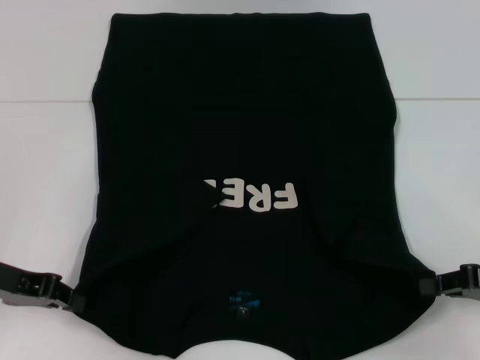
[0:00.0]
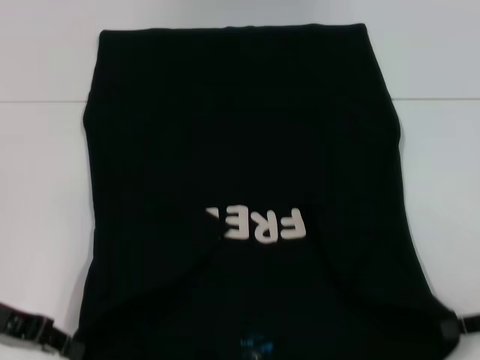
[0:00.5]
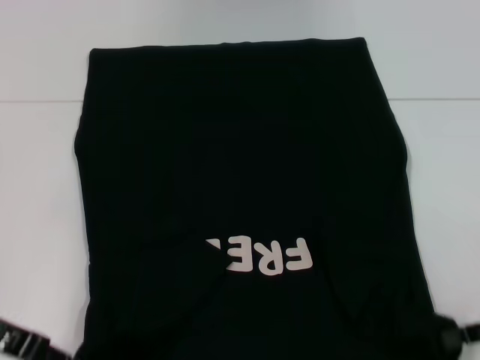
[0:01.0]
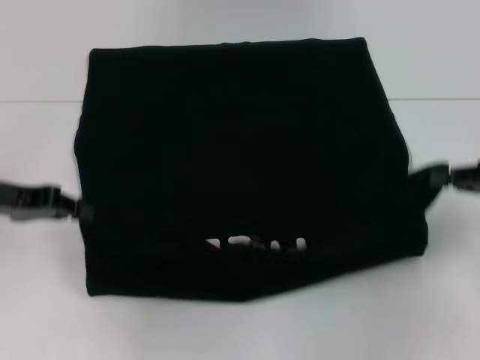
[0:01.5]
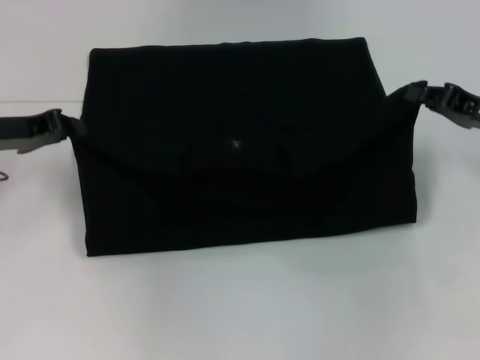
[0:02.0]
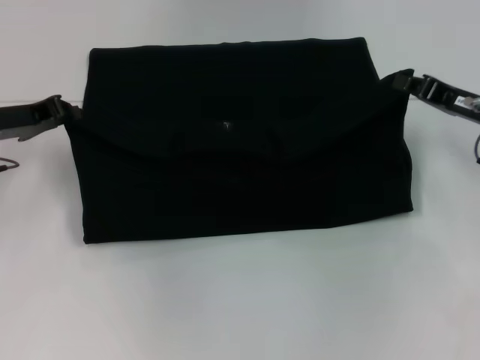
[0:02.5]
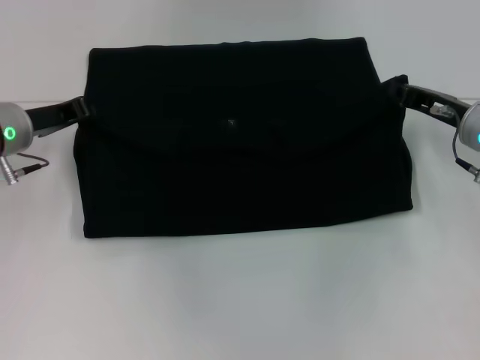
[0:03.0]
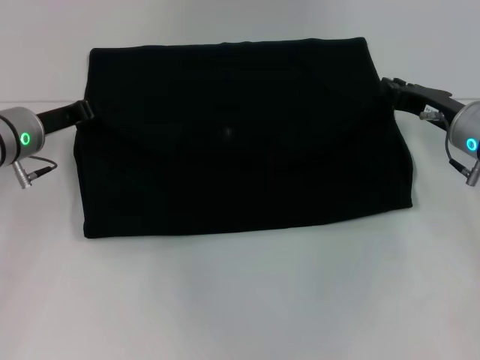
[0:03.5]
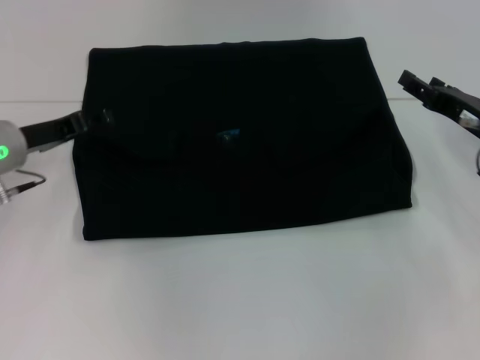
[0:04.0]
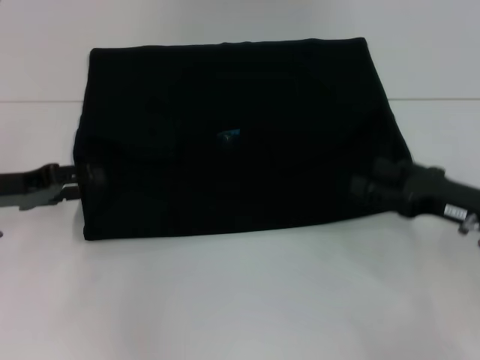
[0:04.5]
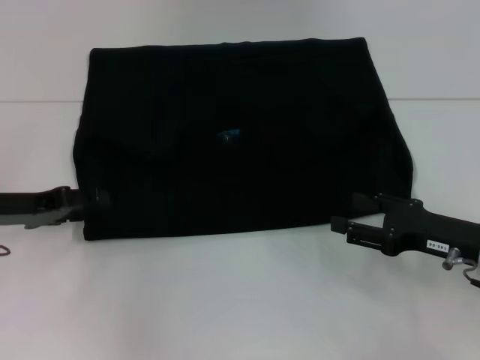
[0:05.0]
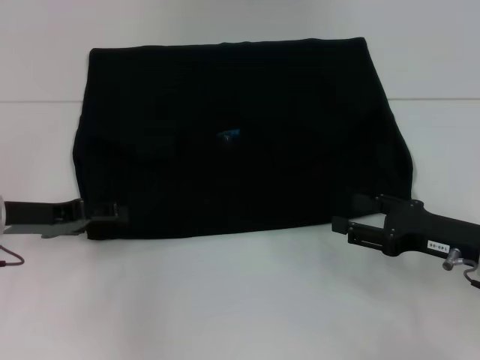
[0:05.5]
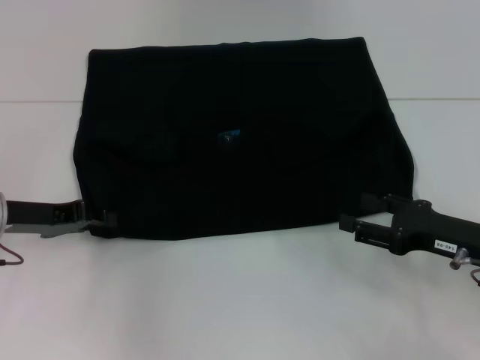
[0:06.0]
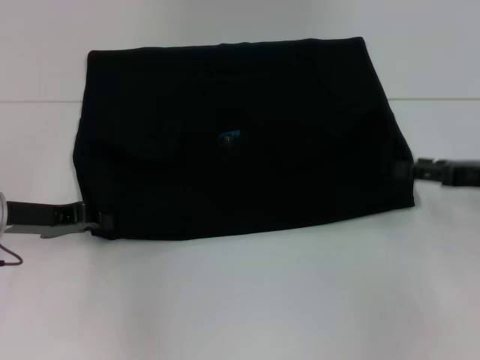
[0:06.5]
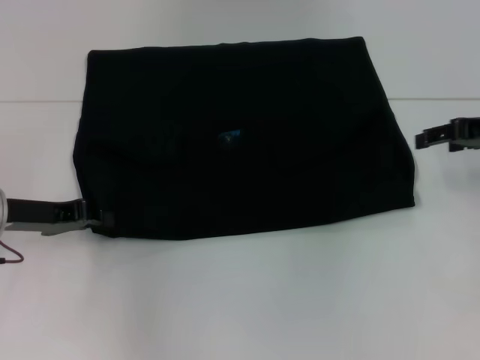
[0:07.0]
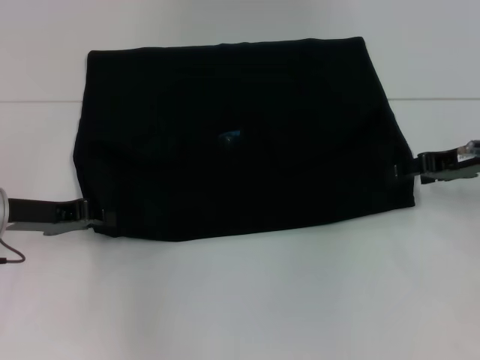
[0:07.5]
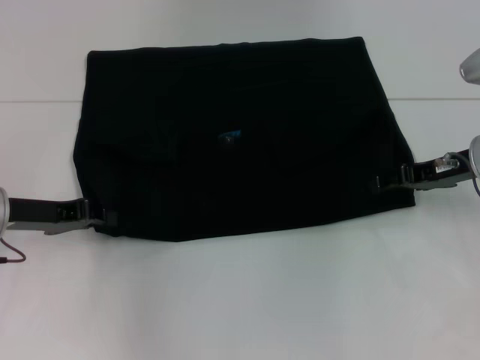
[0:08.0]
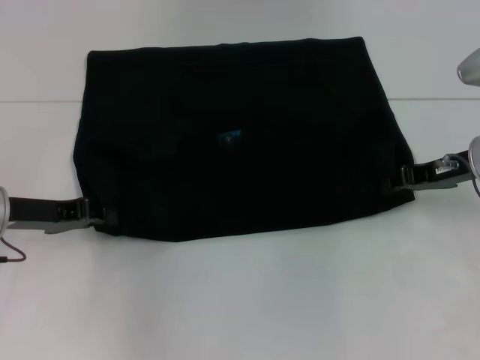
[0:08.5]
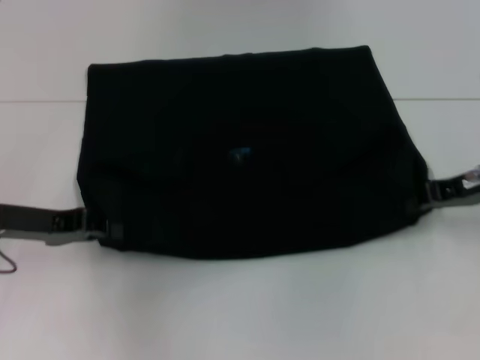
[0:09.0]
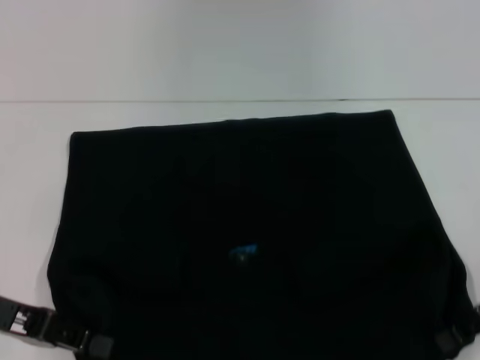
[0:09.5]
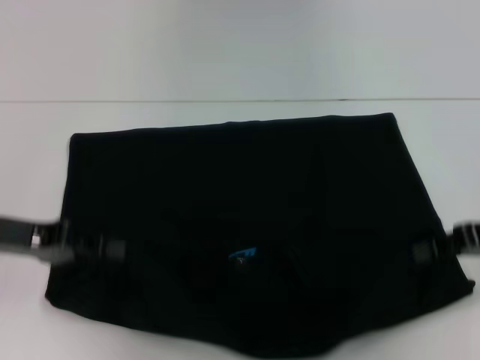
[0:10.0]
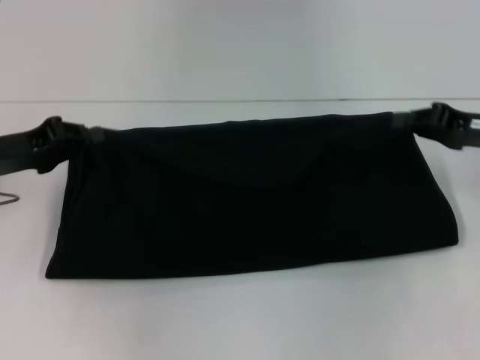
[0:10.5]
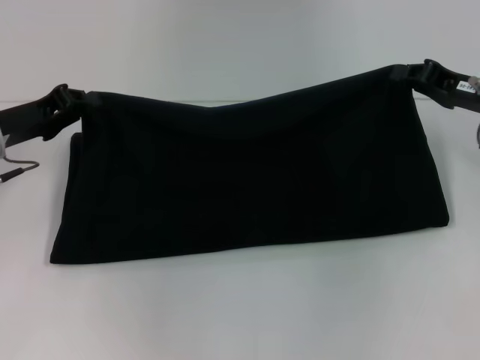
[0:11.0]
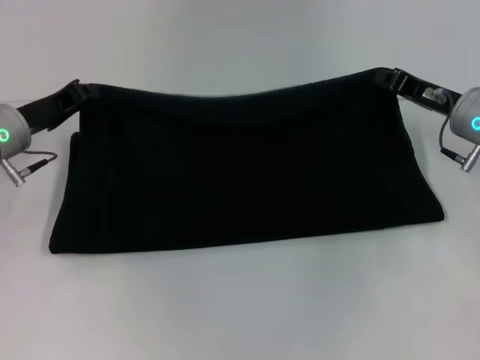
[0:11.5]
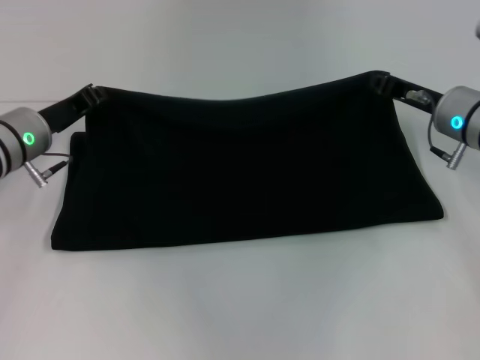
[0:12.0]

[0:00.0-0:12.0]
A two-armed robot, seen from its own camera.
Step, 0:00.0 to 0:04.5: Fold the clothes with your left hand.
Step, 0:00.0 to 0:04.5: Fold the clothes with your right hand.
Step, 0:05.0 to 0:09.0: Pull the clothes with your right hand.
0:00.0 to 0:02.0: Both grippers travel together forward, approximately 10 cm.
0:02.0 to 0:04.0: The left gripper shifts by some 5 cm, and opens up. Meanwhile the right gripper opens up.
0:04.0 to 0:06.0: The left gripper is displaced backward by approximately 5 cm; the right gripper is displaced backward by about 10 cm.
0:06.0 to 0:08.0: The left gripper closes up. The right gripper is displaced forward and upward by about 10 cm.
0:08.0 to 0:10.0: The left gripper shifts by some 5 cm. Meanwhile the right gripper moves backward and to the right, some 10 cm, and closes.
0:10.0 to 0:12.0: The left gripper shifts approximately 10 cm forward; the right gripper travels forward and to the left by some 15 cm.

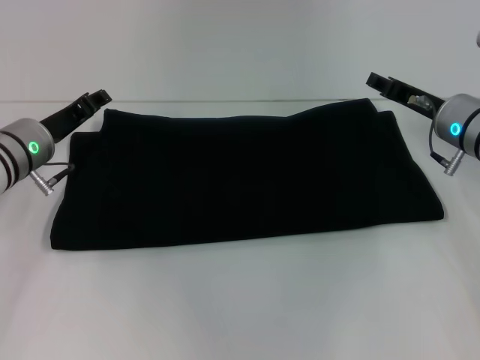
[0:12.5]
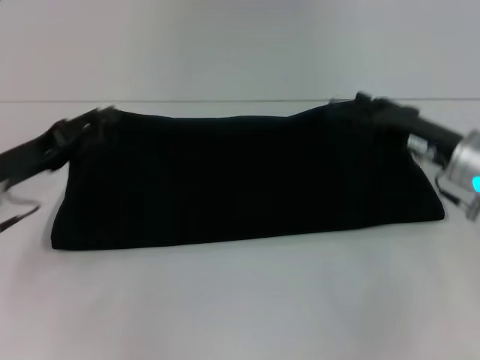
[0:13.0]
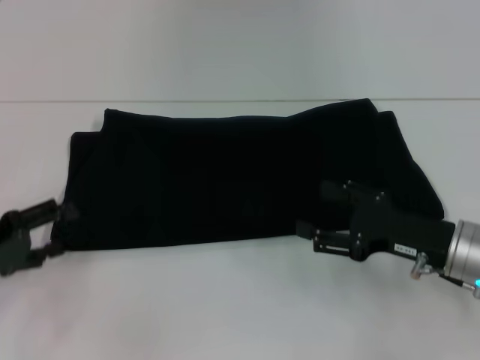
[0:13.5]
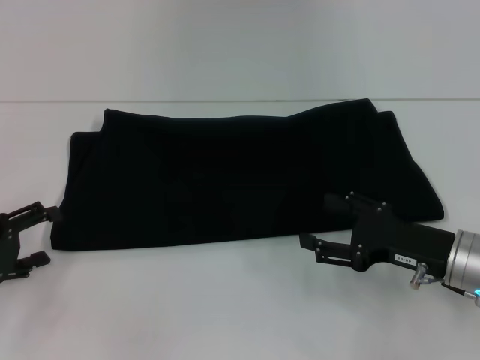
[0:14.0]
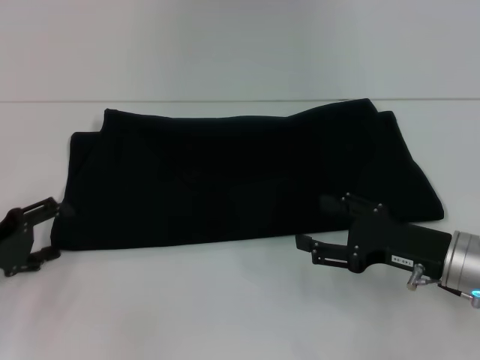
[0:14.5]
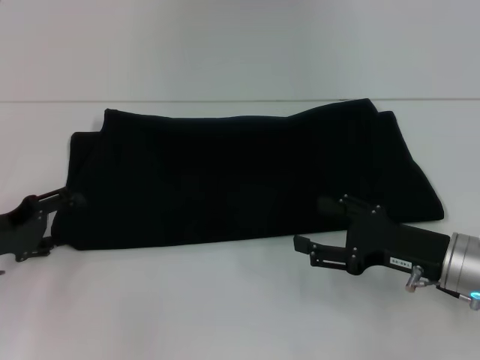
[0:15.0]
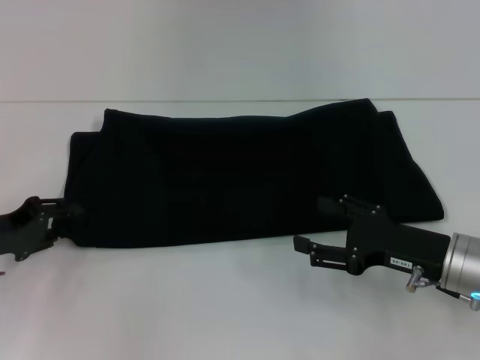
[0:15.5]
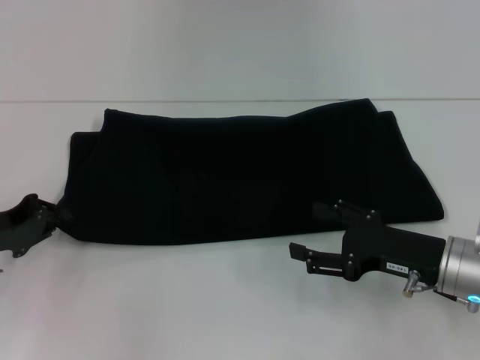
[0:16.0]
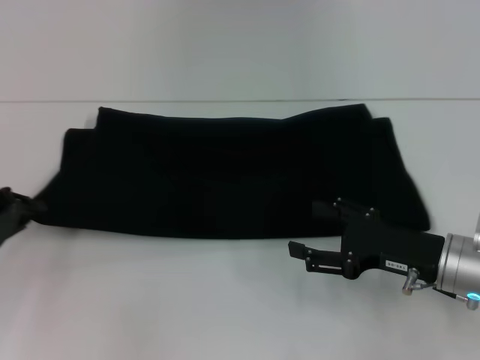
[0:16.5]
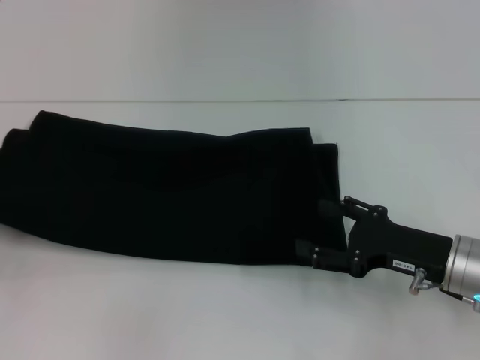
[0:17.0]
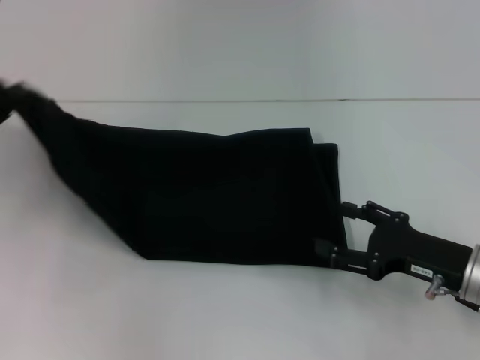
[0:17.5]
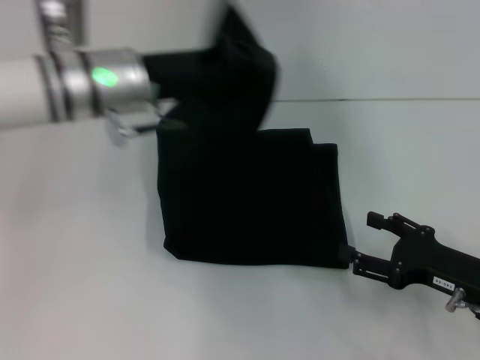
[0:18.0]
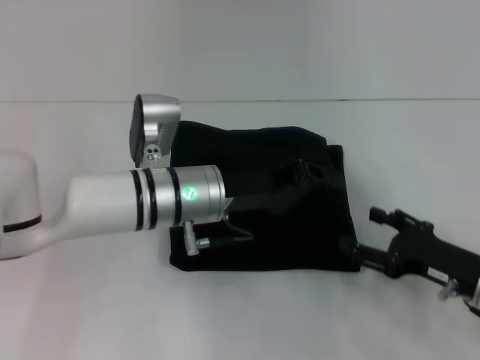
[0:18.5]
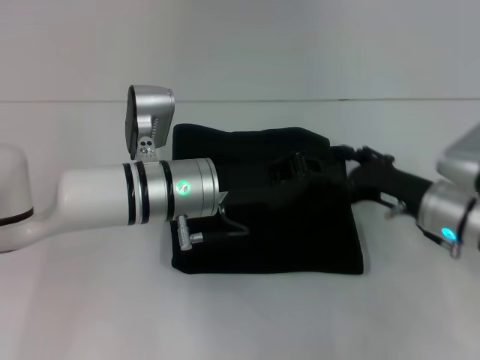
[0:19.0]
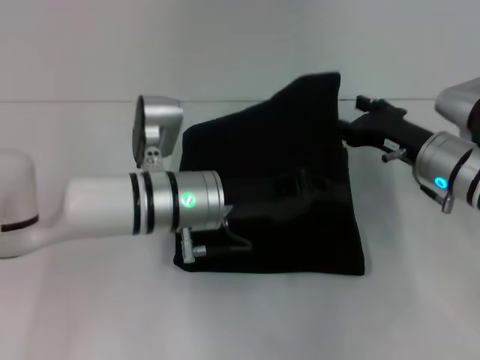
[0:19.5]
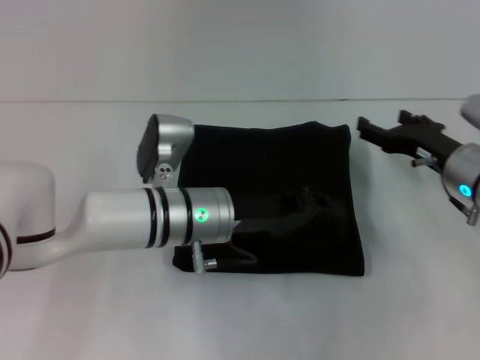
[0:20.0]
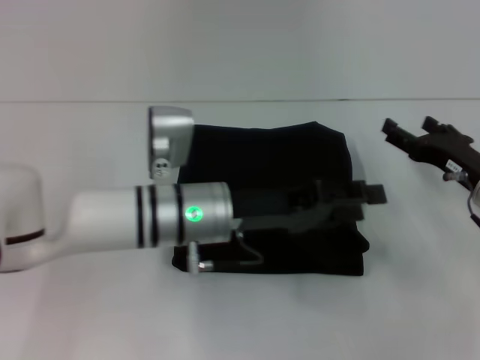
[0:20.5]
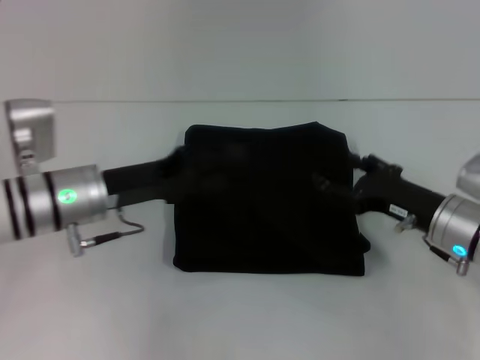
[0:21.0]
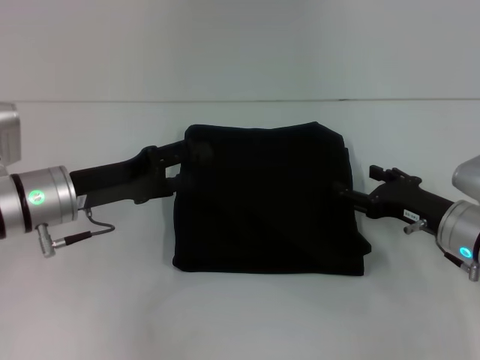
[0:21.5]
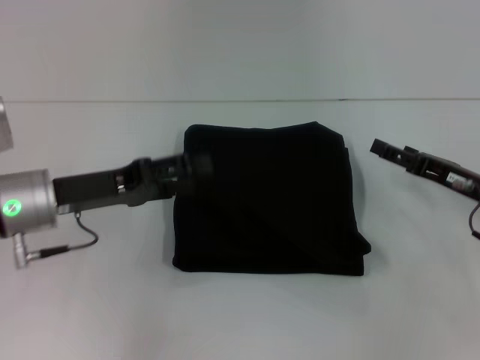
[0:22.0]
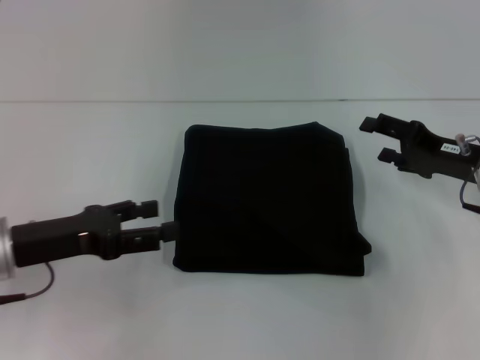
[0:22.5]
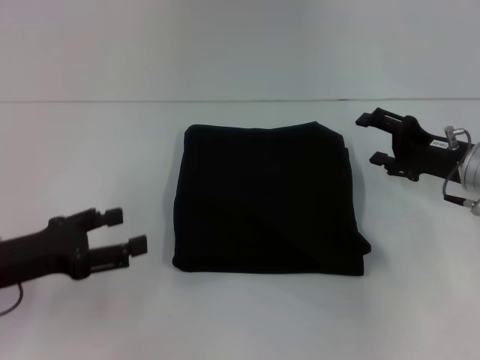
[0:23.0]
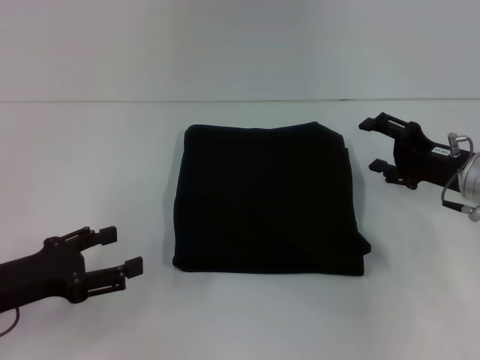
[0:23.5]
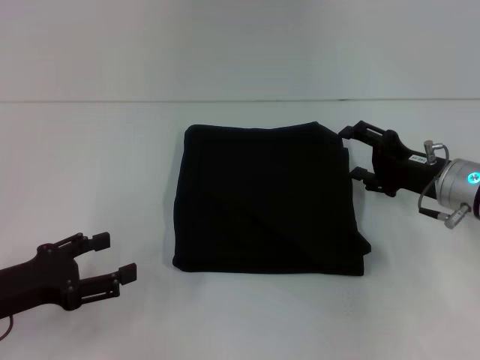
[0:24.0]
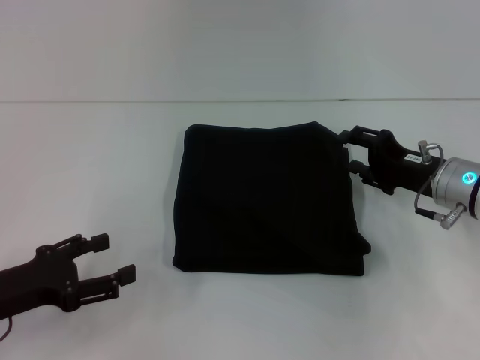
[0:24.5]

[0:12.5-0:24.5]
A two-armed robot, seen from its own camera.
Step, 0:12.5 to 0:20.0: Fold the clothes with your left hand.
0:12.5 to 0:14.5: The right gripper moves backward, about 15 cm, and opens, while the left gripper shifts about 15 cm backward and to the left, and opens.
0:14.5 to 0:16.5: The left gripper closes.
0:16.5 to 0:18.5: The left gripper heads to the right, covering roughly 25 cm; the right gripper moves roughly 5 cm.
0:18.5 to 0:20.5: The left gripper opens its fingers; the right gripper is displaced forward by about 10 cm.
0:20.5 to 0:22.5: The left gripper heads to the left, covering some 20 cm, and opens up.
0:22.5 to 0:24.5: The left gripper is displaced backward by about 5 cm.

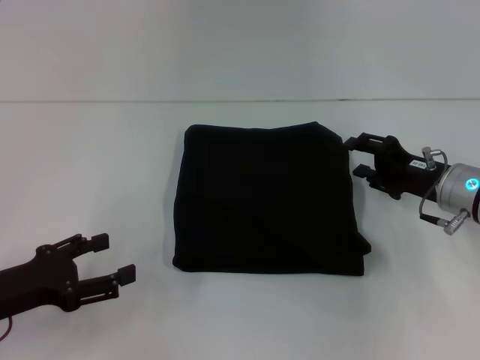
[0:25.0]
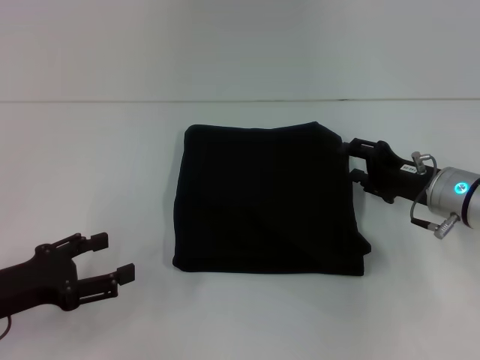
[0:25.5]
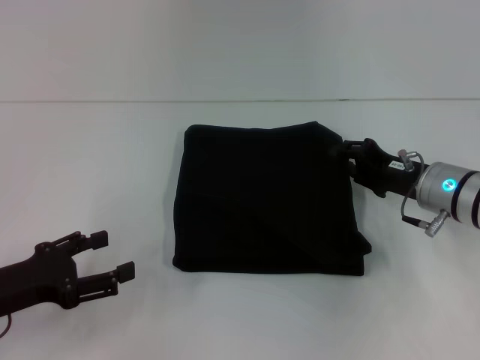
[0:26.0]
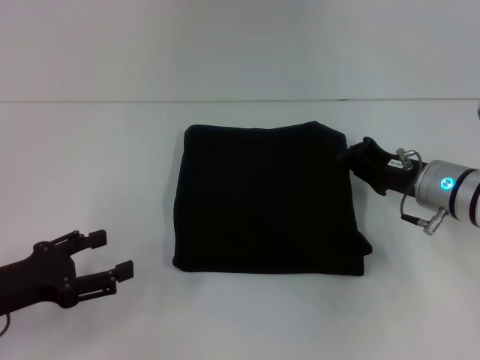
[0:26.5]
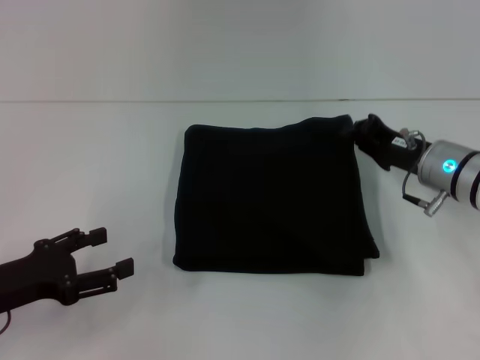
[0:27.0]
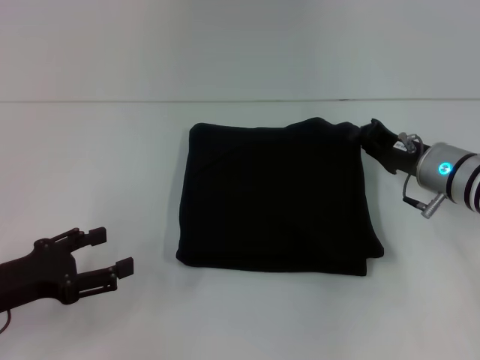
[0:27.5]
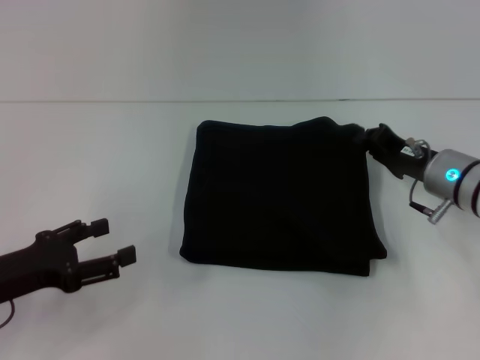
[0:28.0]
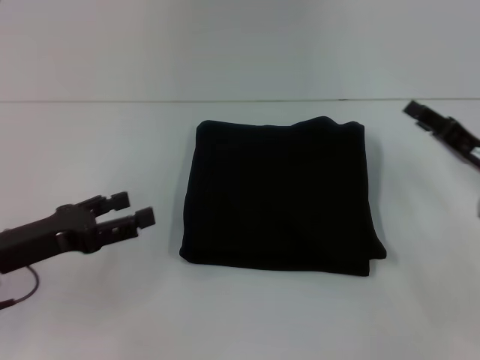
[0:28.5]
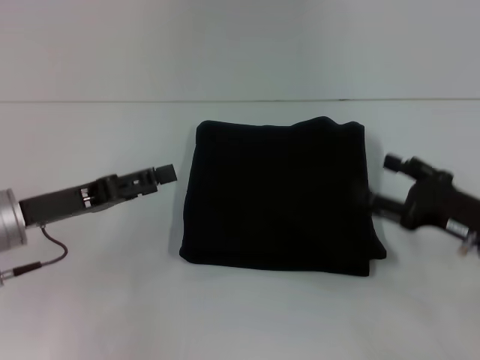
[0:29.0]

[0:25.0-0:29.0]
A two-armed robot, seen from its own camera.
0:25.0 to 0:27.0: The right gripper closes.
0:27.0 to 0:29.0: The left gripper moves forward, approximately 5 cm. The right gripper is displaced backward and to the right by roughly 10 cm, and opens up.
